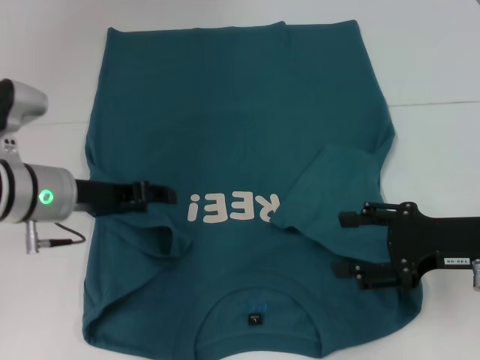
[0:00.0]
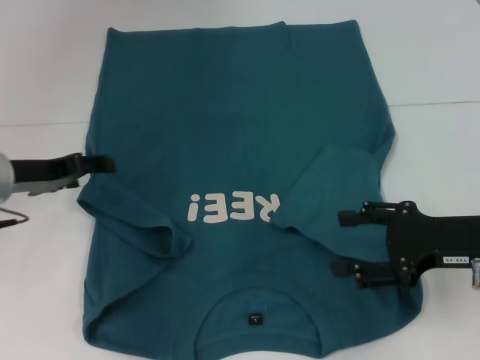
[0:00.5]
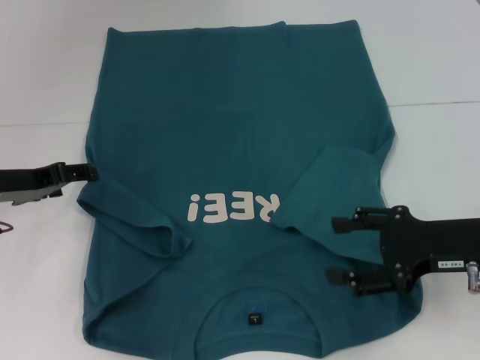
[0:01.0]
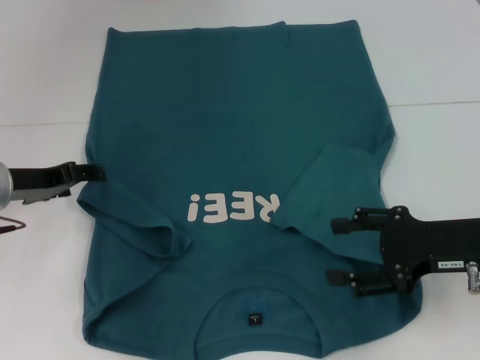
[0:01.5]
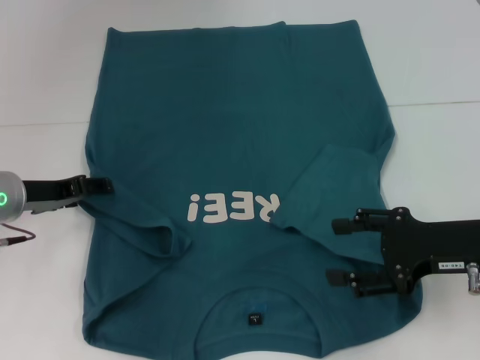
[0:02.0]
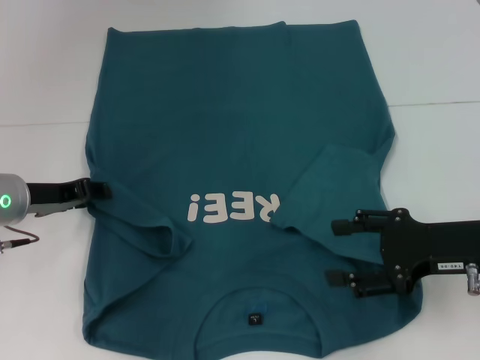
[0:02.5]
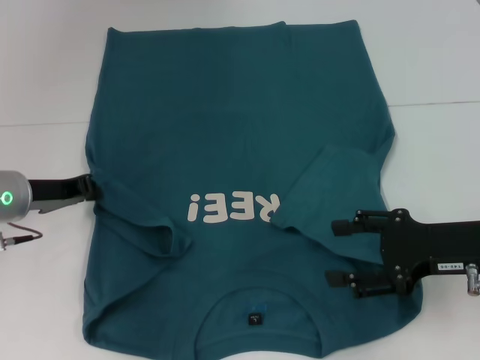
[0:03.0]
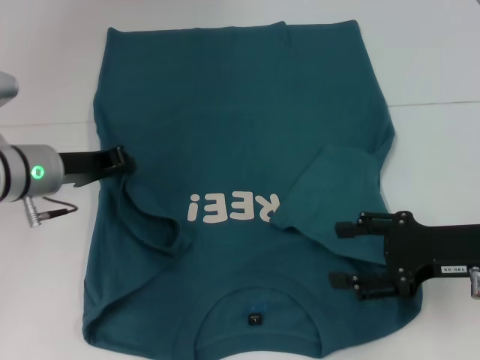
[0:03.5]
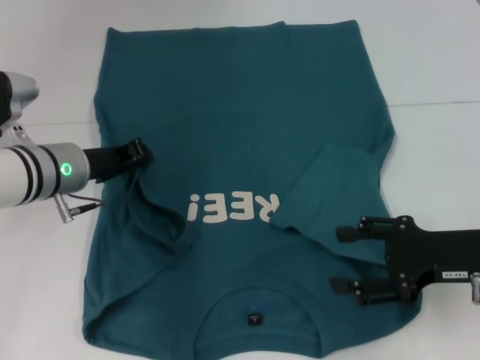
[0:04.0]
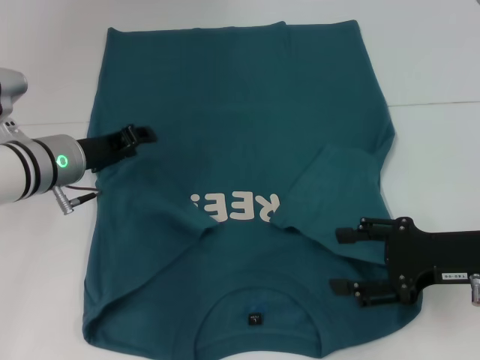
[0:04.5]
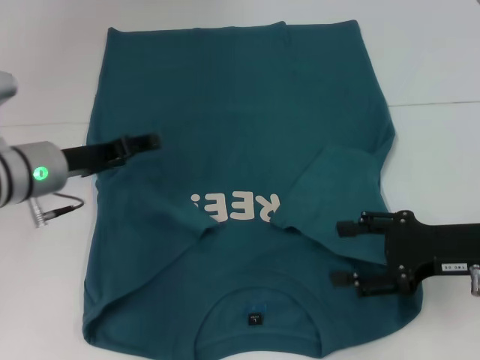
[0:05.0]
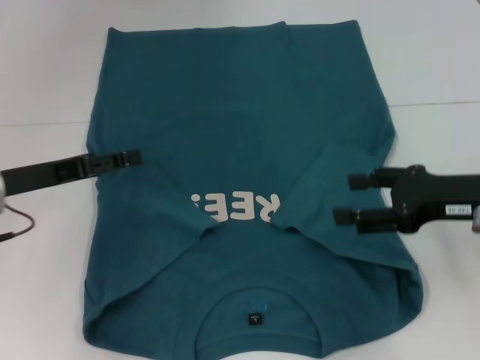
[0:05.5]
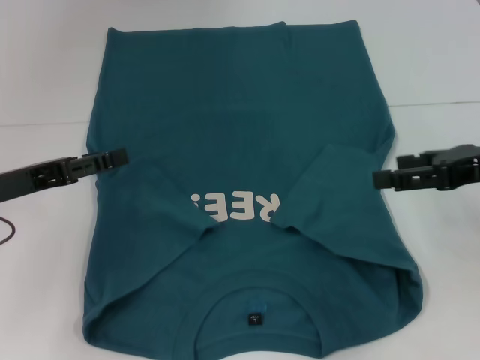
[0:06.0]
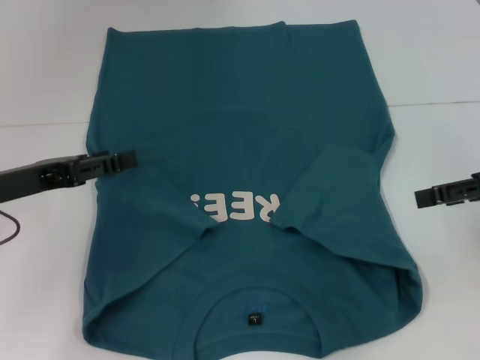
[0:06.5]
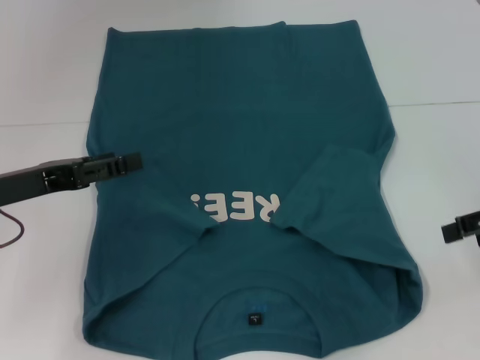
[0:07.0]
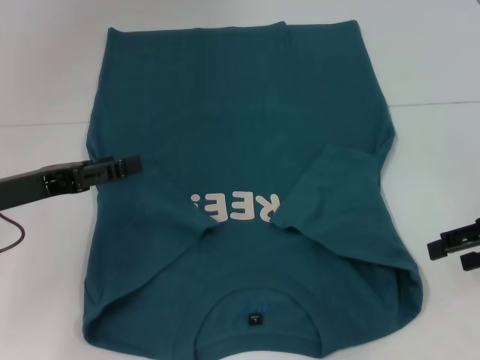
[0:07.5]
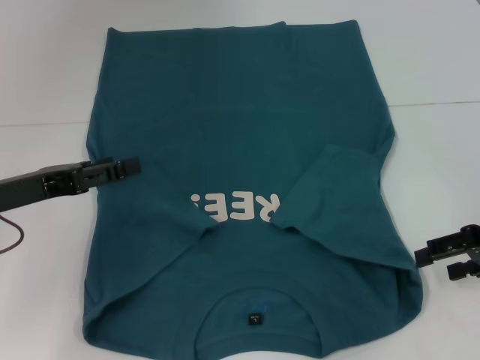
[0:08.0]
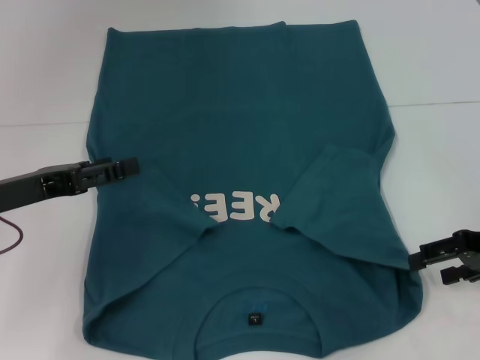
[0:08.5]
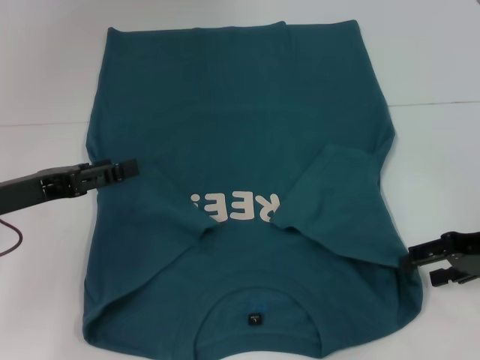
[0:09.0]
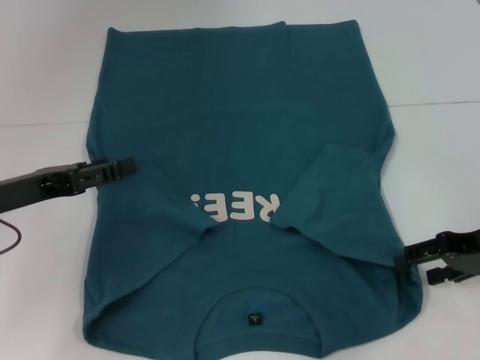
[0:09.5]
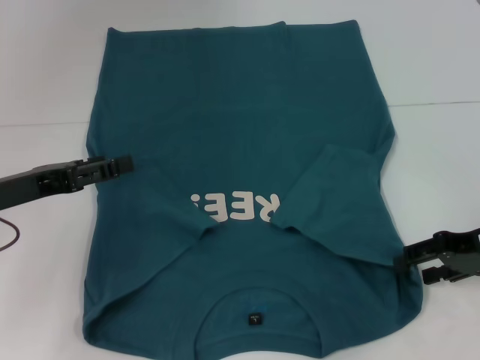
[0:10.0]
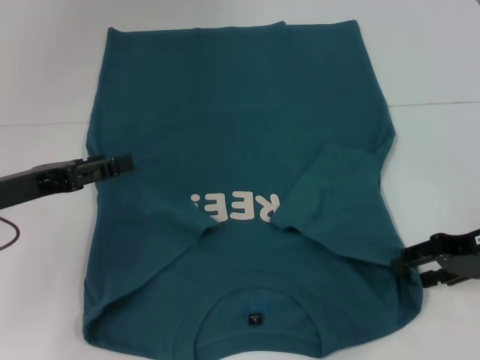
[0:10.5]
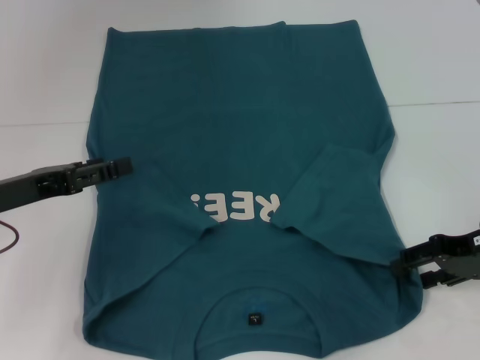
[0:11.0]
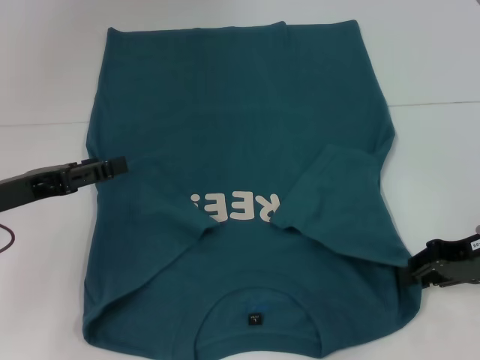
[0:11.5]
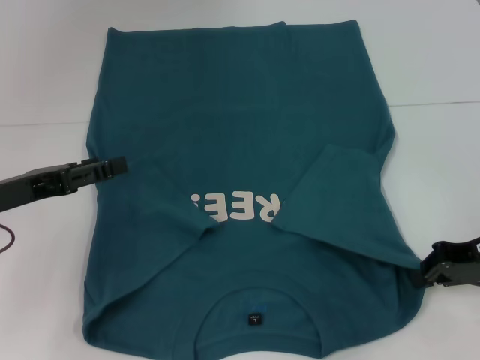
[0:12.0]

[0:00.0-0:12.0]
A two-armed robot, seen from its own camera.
Step, 0:00.0 to 0:04.0: Fold the bottom left sleeve with your left hand.
0:00.0 to 0:02.0: The left gripper goes approximately 5 cm to the left, and opens its fingers.
0:02.0 to 0:04.0: The left gripper moves to the right, roughly 5 cm, and closes up.
0:04.0 to 0:06.0: The right gripper moves upward, about 10 cm; the left gripper shifts about 10 cm to the left and backward, and opens up.
0:06.0 to 0:08.0: The right gripper moves downward, roughly 5 cm.
0:08.0 to 0:10.0: The grippers make only small movements.
0:10.0 to 0:12.0: The right gripper closes.

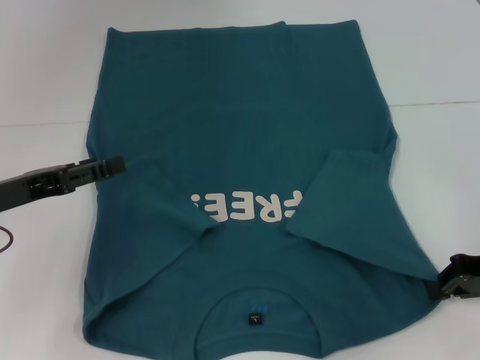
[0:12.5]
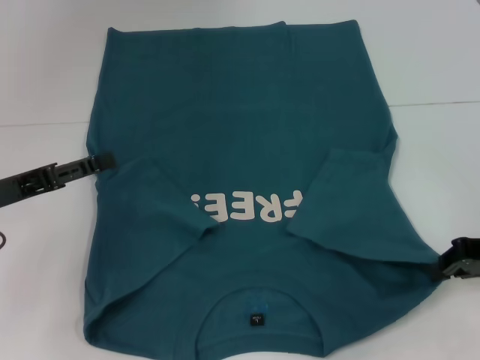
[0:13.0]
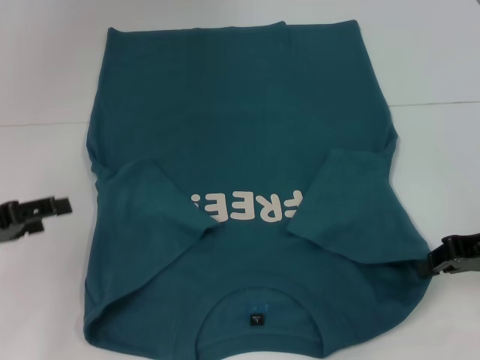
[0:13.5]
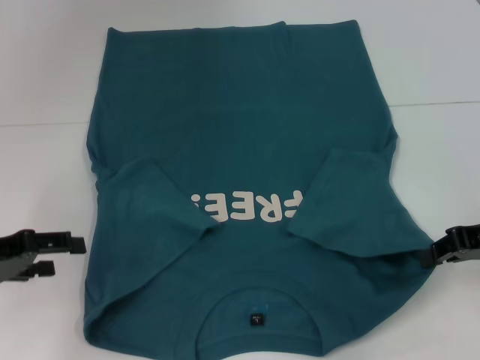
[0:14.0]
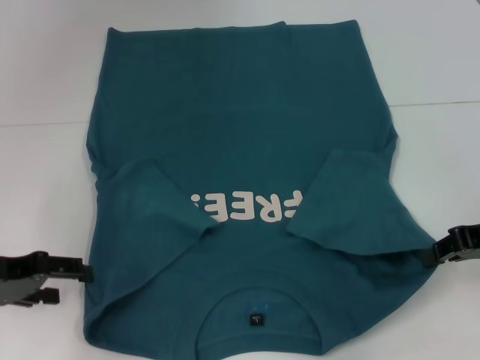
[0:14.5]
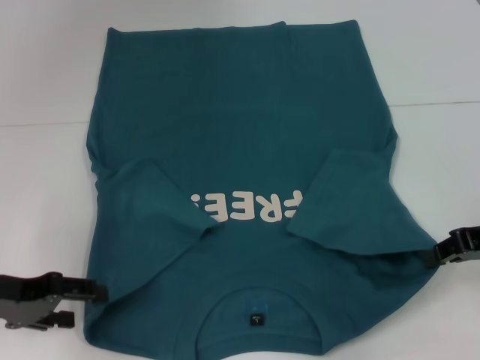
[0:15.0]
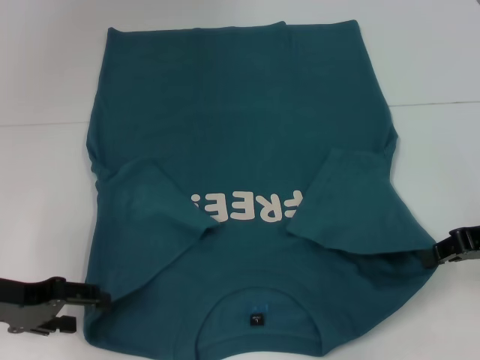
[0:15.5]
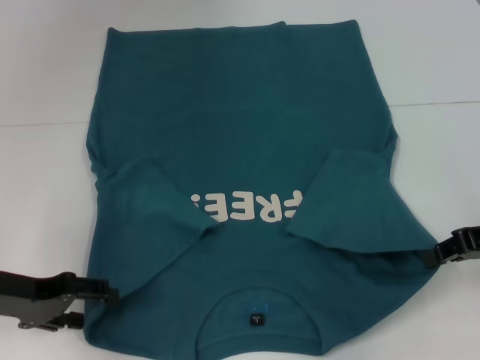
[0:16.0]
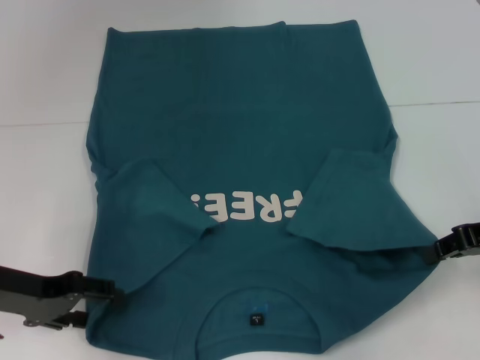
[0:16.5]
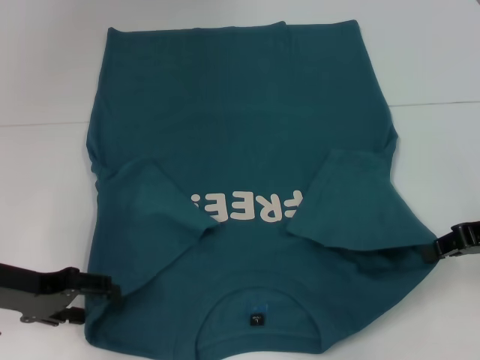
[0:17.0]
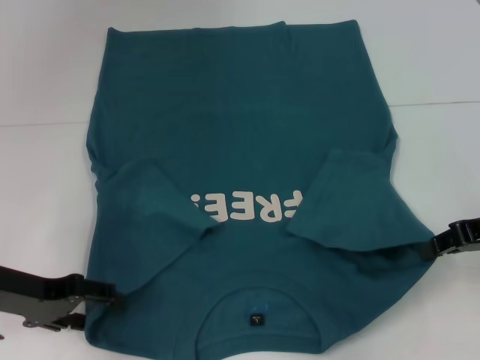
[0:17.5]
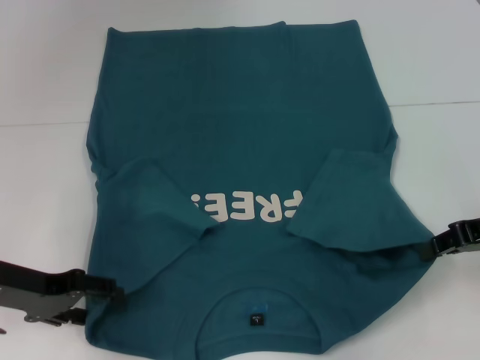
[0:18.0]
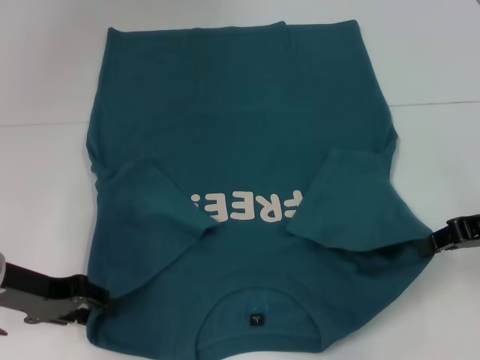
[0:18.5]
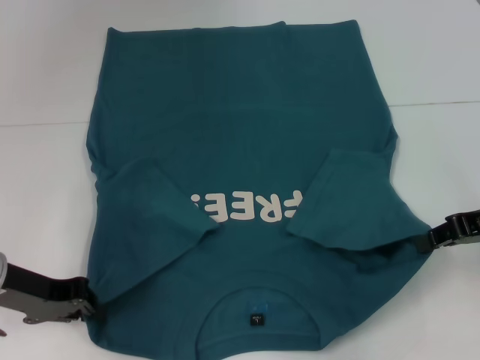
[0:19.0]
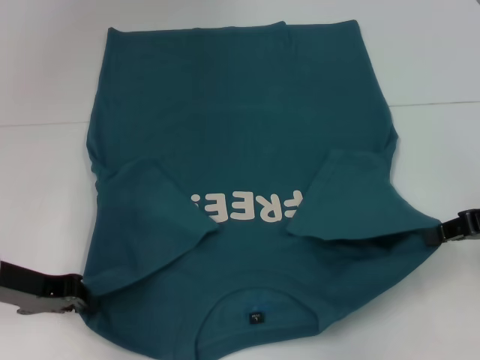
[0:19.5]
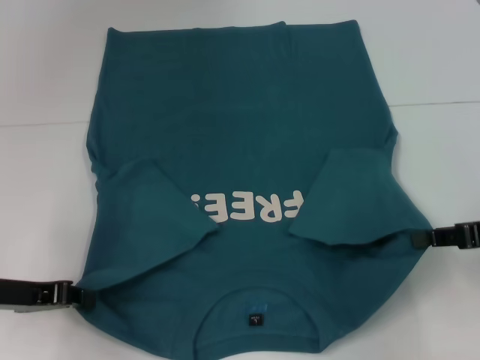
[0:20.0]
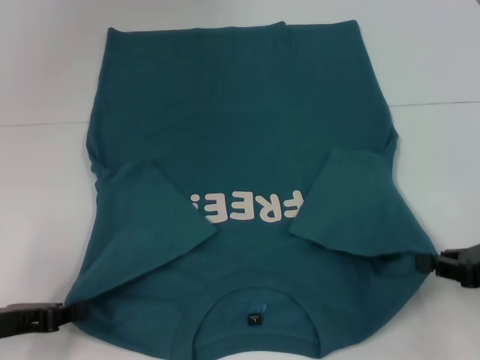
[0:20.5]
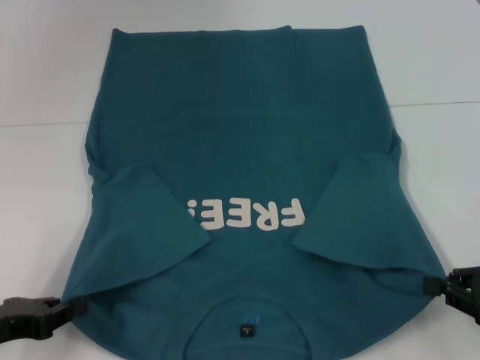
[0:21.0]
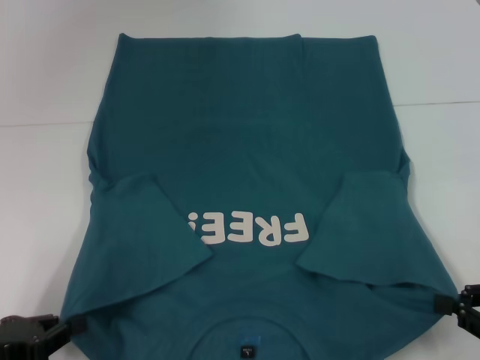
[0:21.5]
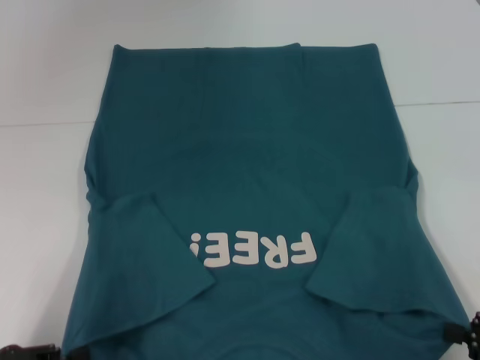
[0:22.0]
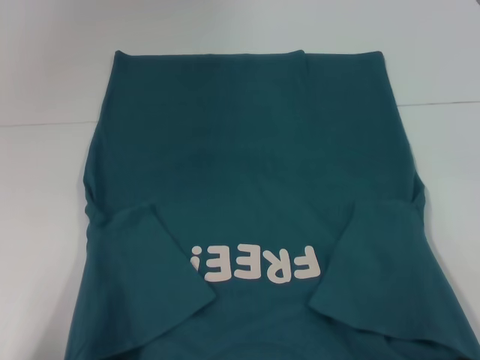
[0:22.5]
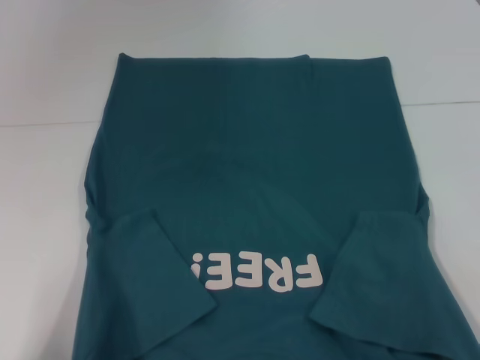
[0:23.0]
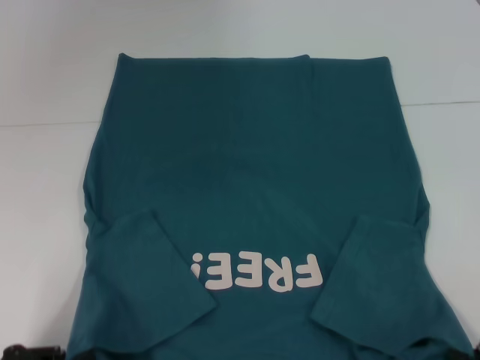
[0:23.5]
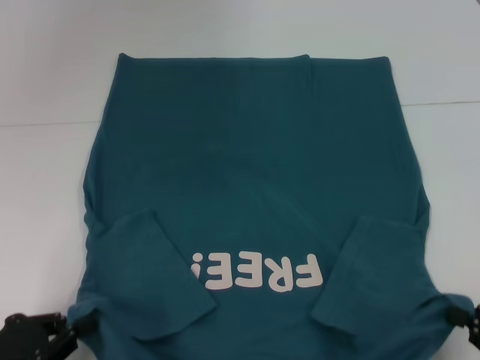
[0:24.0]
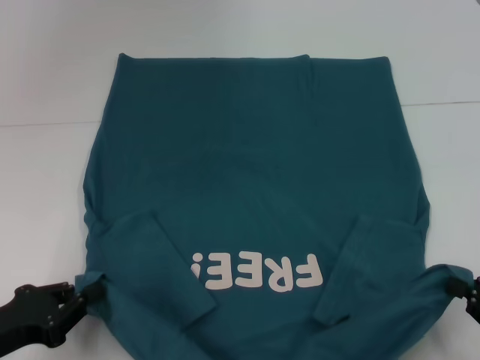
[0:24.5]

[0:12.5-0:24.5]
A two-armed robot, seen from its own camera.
Step, 0:12.5 to 0:20.0: Grab the bottom left corner with your left hand.
0:14.5 to 0:18.5: There are only small adjustments of the grippers.
0:18.5 to 0:20.5: The left gripper is displaced backward by approximately 5 cm, and closes up, while the right gripper shifts some 10 cm backward and downward.
0:20.5 to 0:22.5: The two grippers go roughly 10 cm backward.
0:22.5 to 0:24.5: The left gripper heads forward, covering roughly 5 cm.

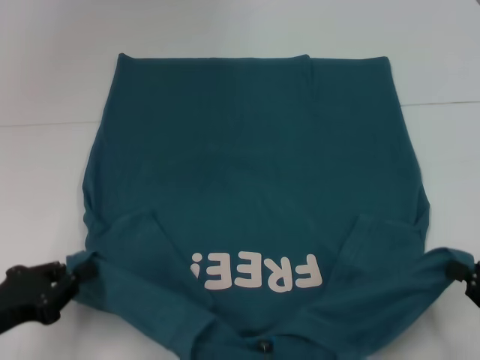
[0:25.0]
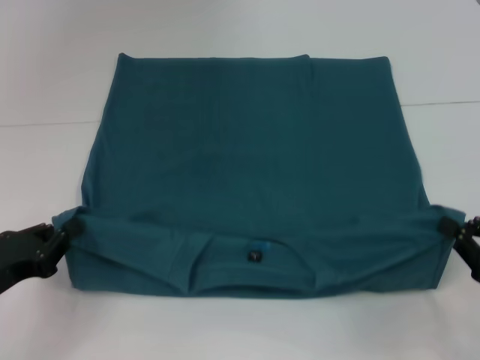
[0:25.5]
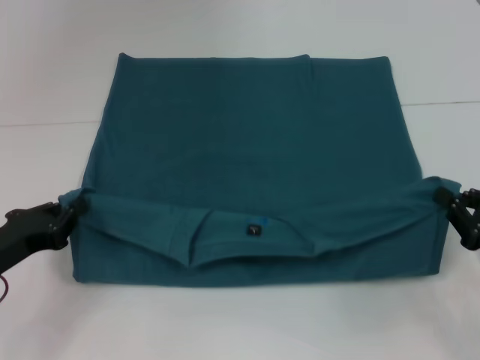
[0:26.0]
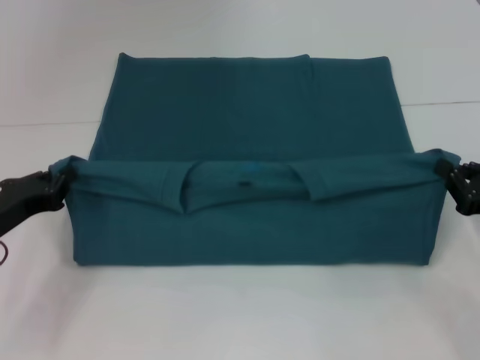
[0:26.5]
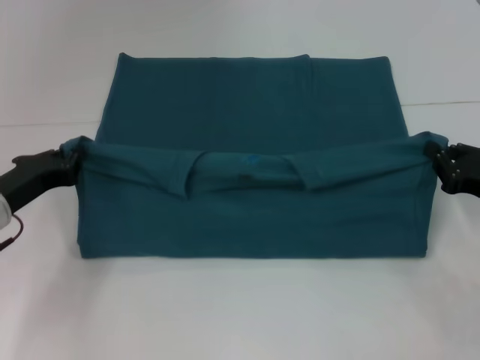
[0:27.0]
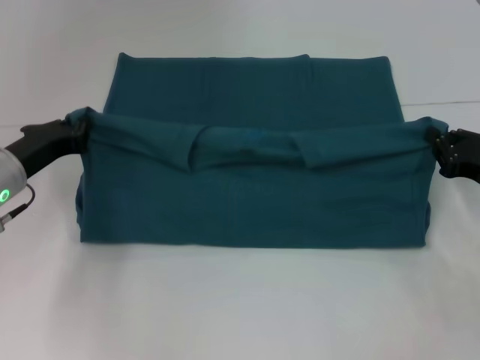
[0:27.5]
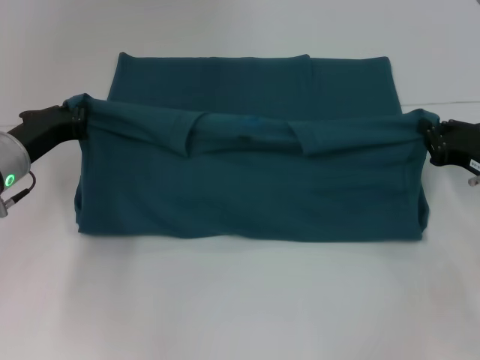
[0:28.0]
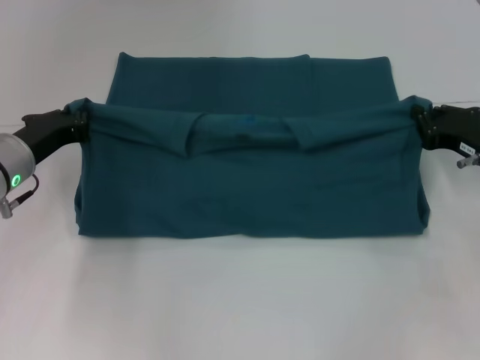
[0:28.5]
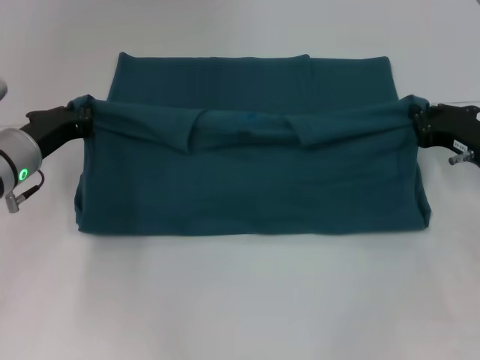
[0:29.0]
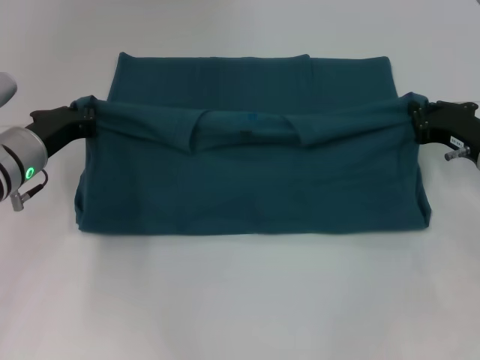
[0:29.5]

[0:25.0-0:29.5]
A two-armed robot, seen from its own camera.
0:25.0 to 0:27.0: Both grippers travel together forward, roughly 10 cm.
0:27.0 to 0:29.5: The grippers both shift forward by approximately 5 cm.
